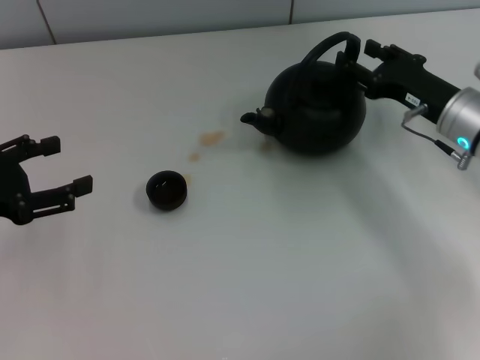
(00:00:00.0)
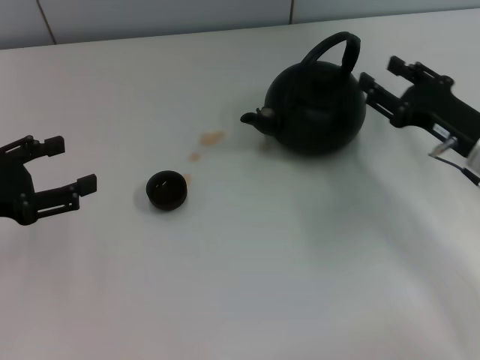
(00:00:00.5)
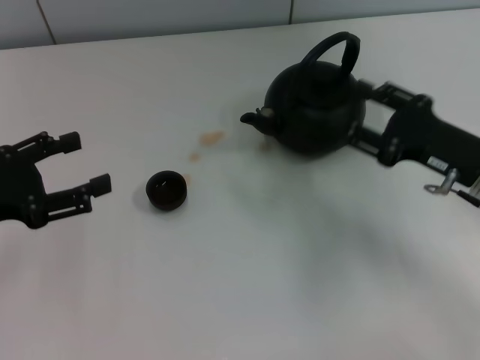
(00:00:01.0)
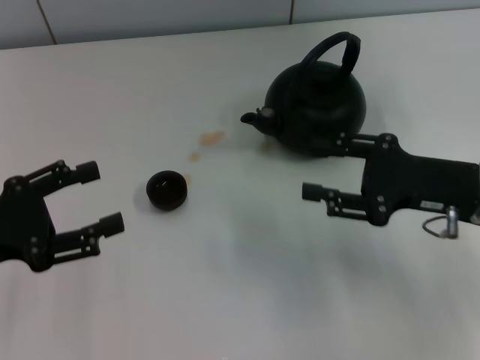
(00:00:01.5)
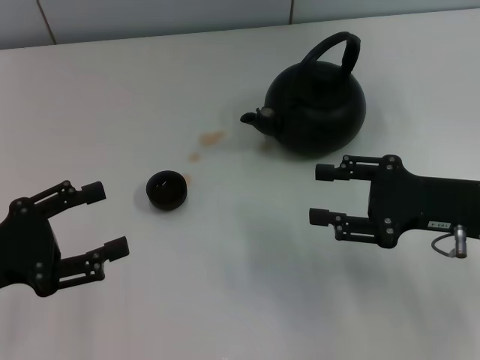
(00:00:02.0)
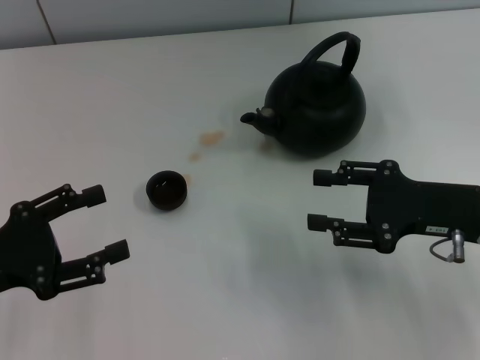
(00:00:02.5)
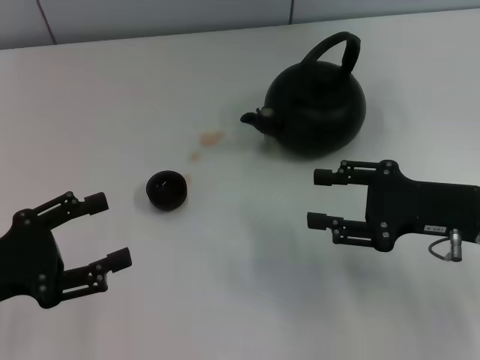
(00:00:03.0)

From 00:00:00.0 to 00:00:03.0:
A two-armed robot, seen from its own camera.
Task of the whole recording: Grasp the handle of the teapot with one hand and pour tea into the teacup.
From 00:00:00.0 to 00:00:01.5: The right gripper heads backward, covering some 10 cm.
From 00:00:01.5 to 00:00:03.0: The grippers move only a little.
